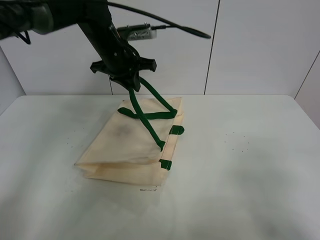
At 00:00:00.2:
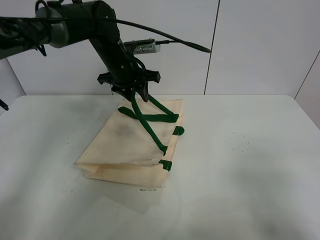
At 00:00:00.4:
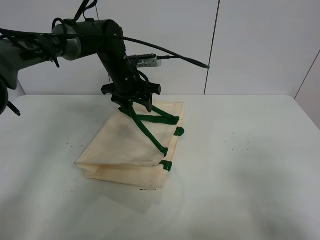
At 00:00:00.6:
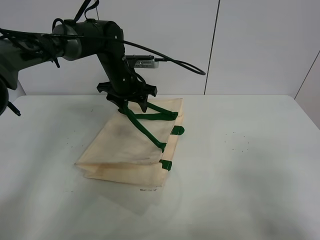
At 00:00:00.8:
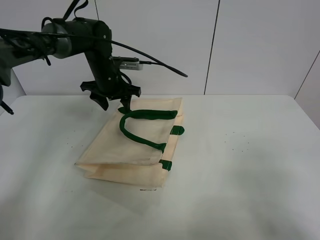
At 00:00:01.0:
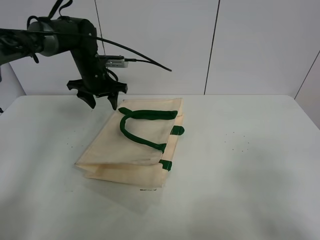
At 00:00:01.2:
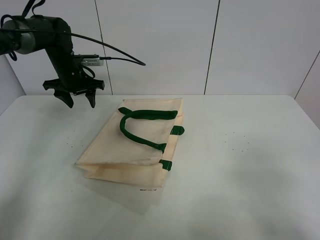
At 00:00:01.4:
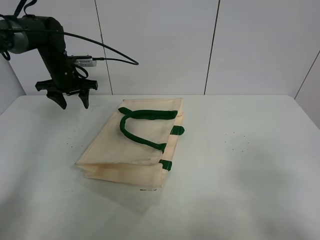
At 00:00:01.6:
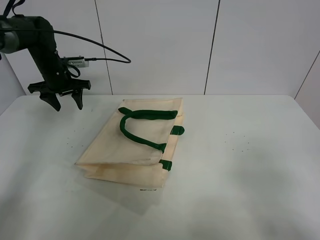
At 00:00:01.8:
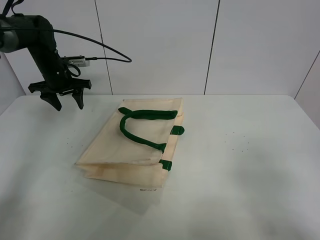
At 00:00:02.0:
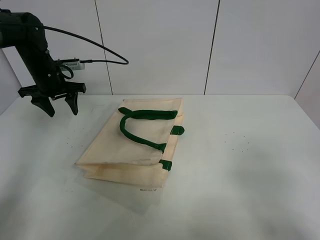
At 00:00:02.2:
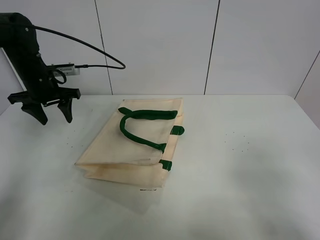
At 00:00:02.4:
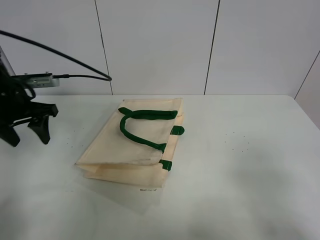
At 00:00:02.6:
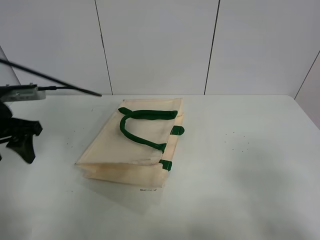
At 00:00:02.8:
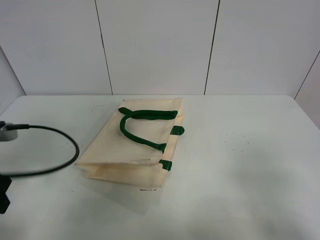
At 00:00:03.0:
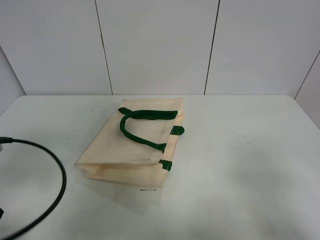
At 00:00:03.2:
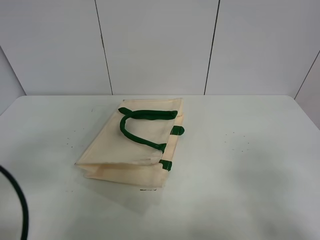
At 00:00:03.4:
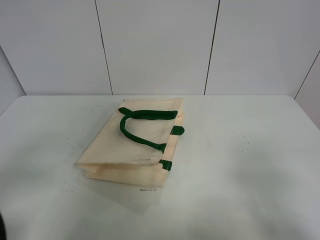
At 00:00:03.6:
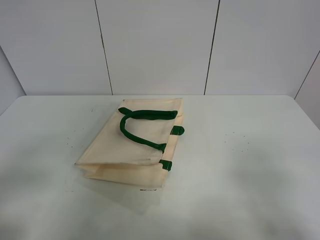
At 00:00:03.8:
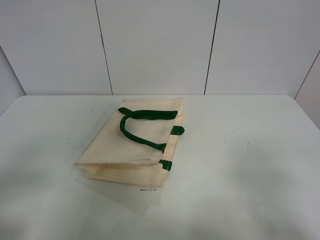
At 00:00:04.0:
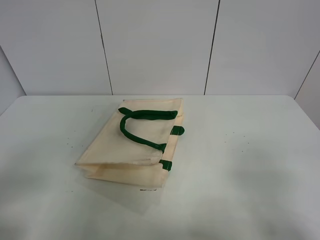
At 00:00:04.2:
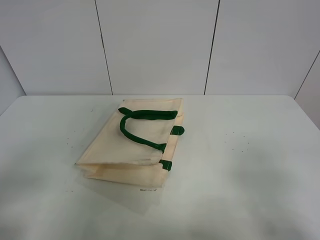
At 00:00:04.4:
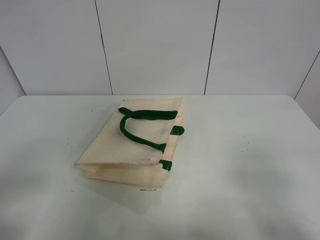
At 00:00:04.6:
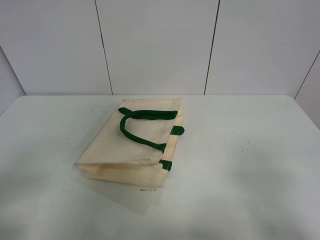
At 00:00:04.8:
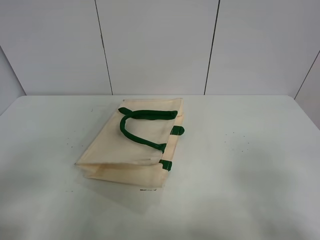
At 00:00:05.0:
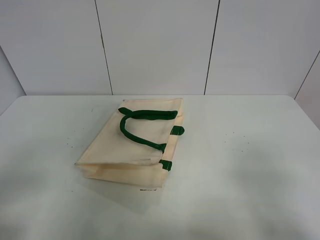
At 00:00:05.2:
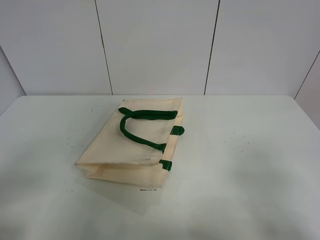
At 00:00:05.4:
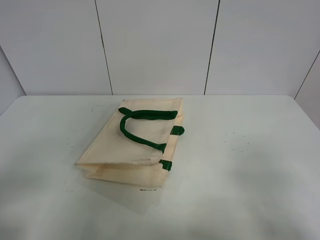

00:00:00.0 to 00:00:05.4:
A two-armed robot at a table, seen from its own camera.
Task of the whole recording: open the white linen bag and put the orange in the bag.
00:00:00.0 to 00:00:01.4: The left gripper moves to the left, about 15 cm, and opens its fingers.
00:00:01.4 to 00:00:02.8: The left gripper heads backward, covering roughly 35 cm.
00:00:02.8 to 00:00:04.0: The left gripper heads backward, covering approximately 15 cm.
00:00:04.0 to 00:00:05.4: Both grippers stay about where they are.
